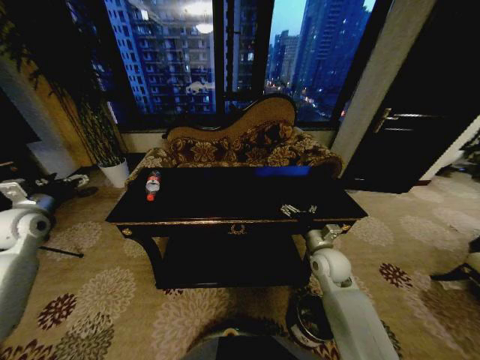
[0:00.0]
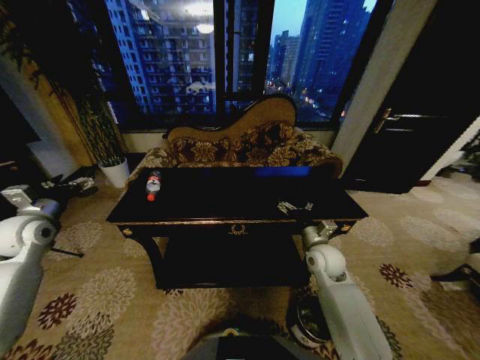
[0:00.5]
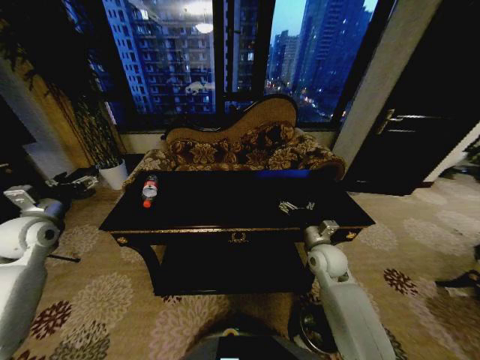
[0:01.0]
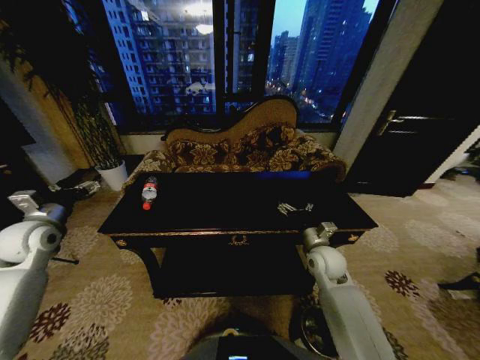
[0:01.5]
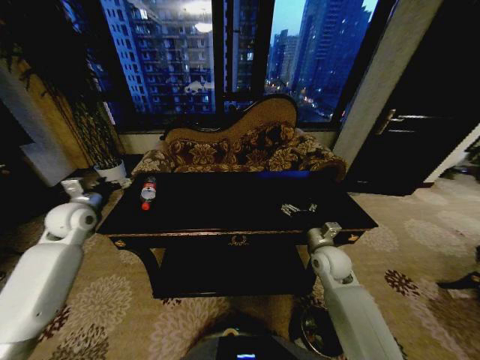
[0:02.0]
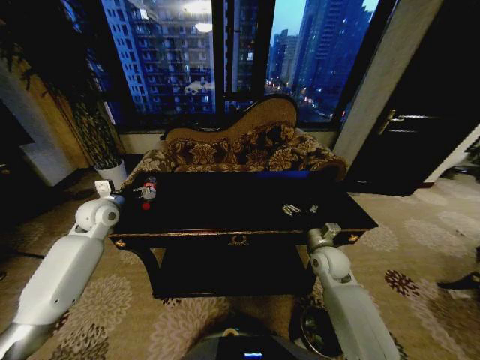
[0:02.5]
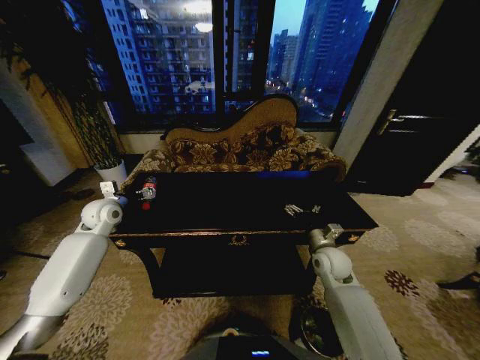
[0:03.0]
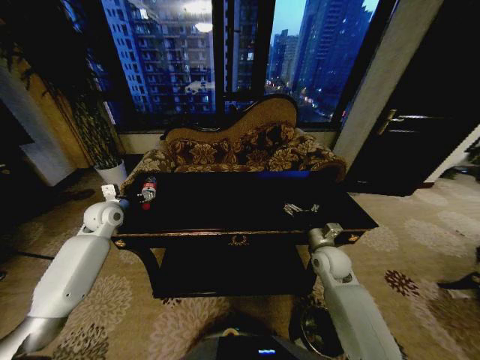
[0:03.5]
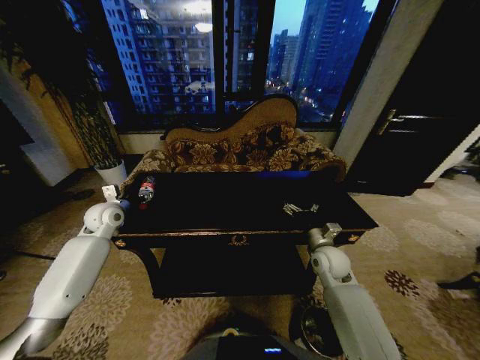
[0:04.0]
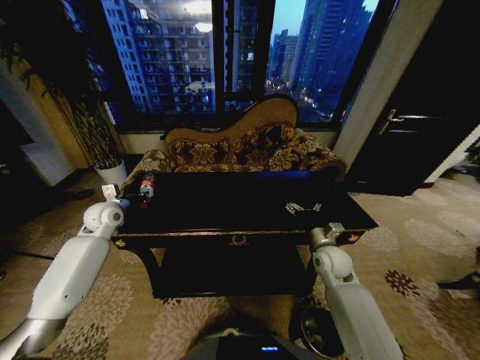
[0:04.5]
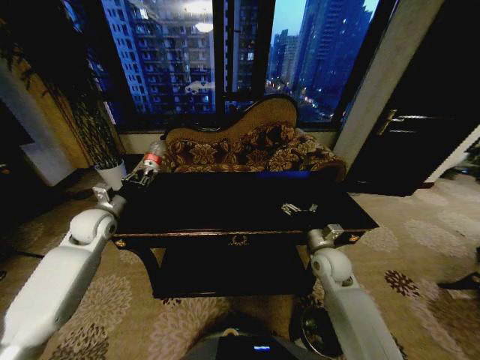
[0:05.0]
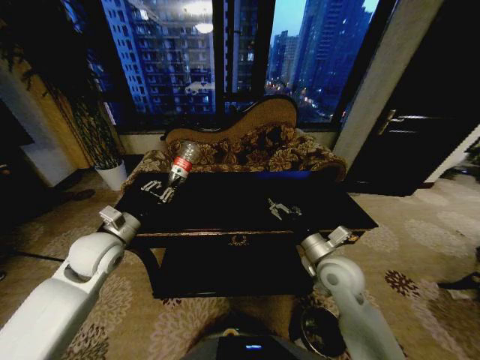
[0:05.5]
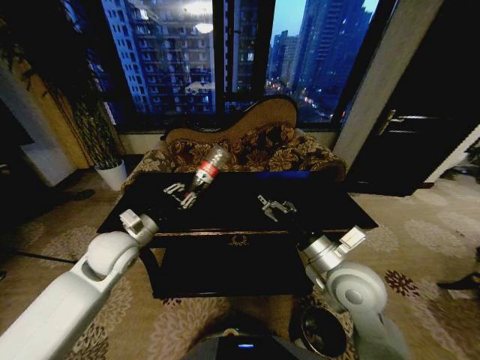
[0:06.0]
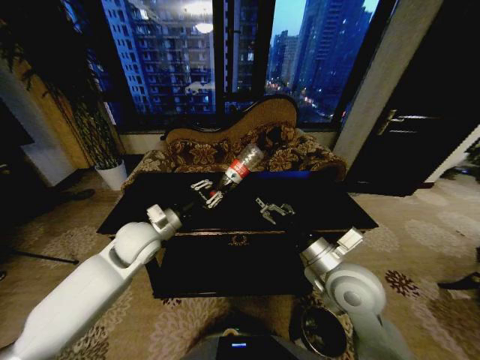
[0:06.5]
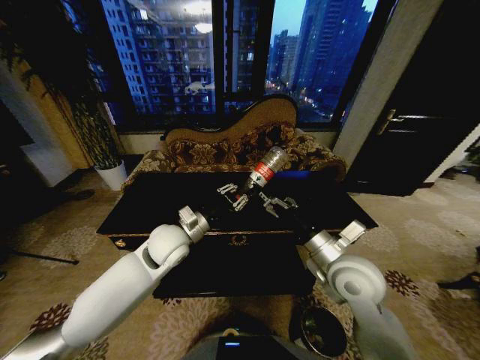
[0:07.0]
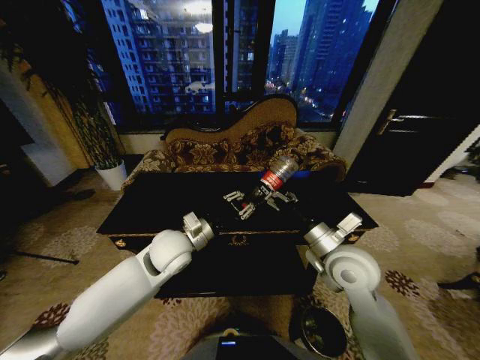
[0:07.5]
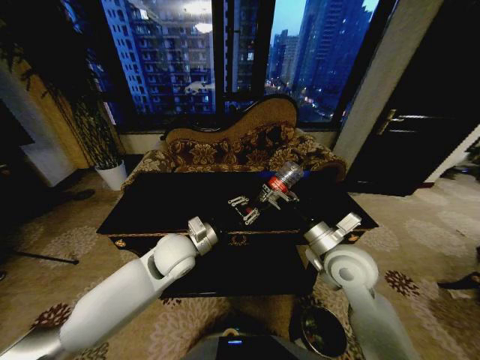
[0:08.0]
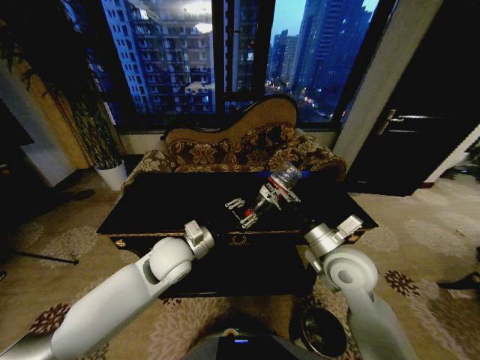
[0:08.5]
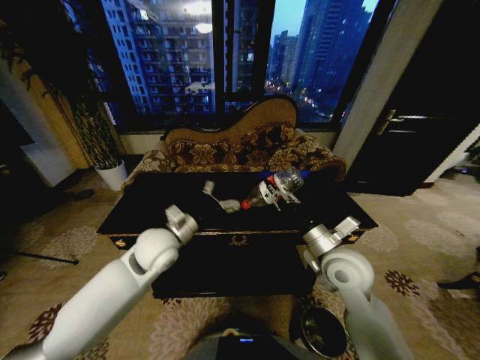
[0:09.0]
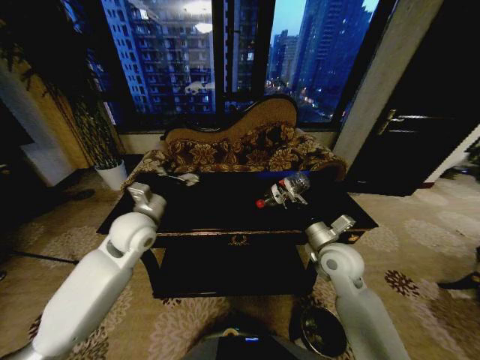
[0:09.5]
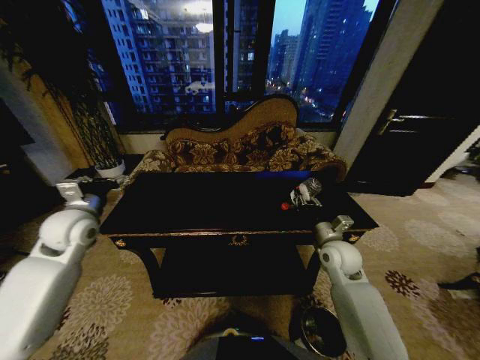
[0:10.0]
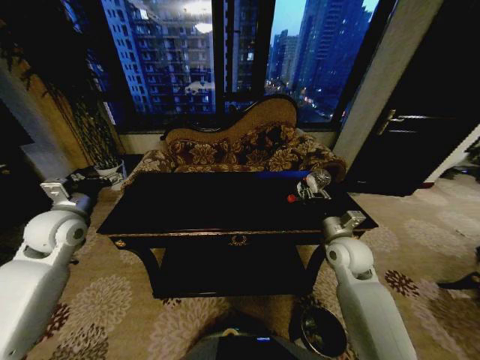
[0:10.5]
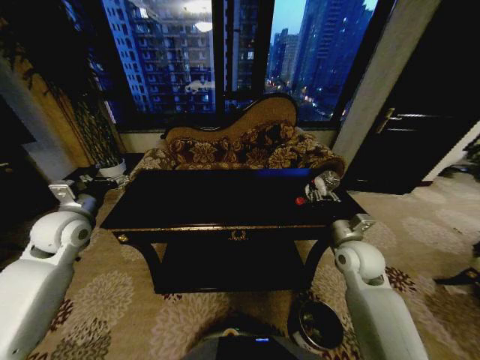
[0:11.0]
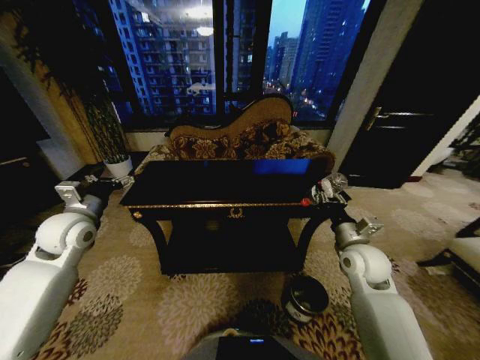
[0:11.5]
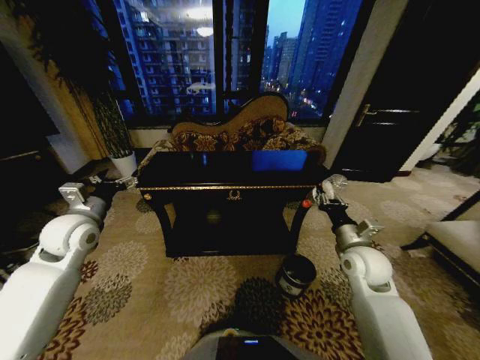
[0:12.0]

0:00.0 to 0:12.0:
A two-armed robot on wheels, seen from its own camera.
Task of the whole recording: Move to the front of the table and place the trash on the table into the trash bin.
0:00.0 to 0:02.0: The left gripper travels to the right by about 10 cm.
0:02.0 to 0:04.0: The left gripper ends up approximately 5 cm from where it was.
0:04.0 to 0:06.0: The right gripper travels upward, backward and to the left by approximately 20 cm; the left gripper is displaced backward and to the right by some 15 cm, and closes up.
0:06.0 to 0:08.0: The left gripper shifts roughly 15 cm to the right.
0:08.0 to 0:10.0: The left gripper moves to the left, about 25 cm, and opens its fingers; the right gripper shifts approximately 10 cm downward, forward and to the right, and closes its fingers.
0:10.0 to 0:12.0: The right gripper changes place by approximately 5 cm.

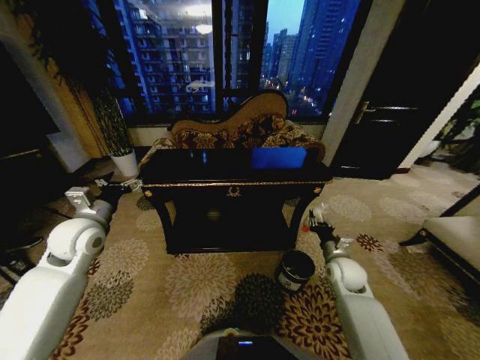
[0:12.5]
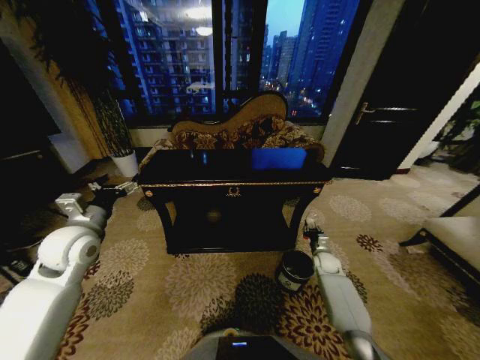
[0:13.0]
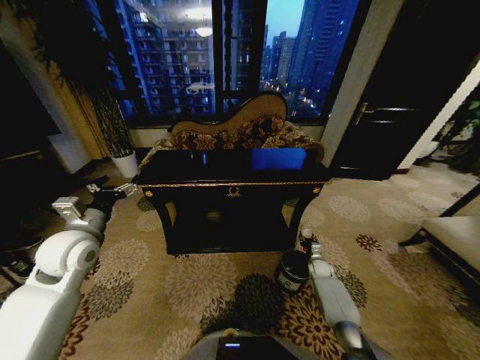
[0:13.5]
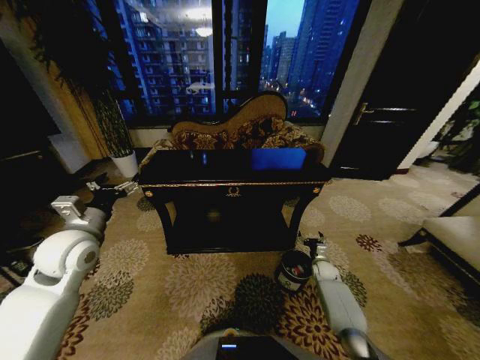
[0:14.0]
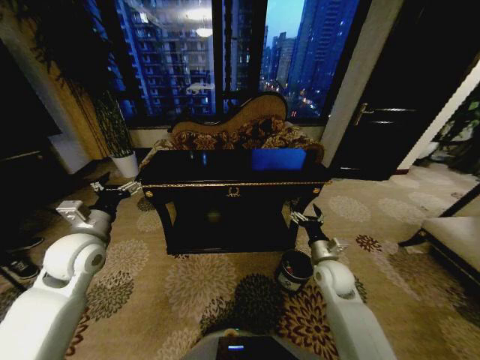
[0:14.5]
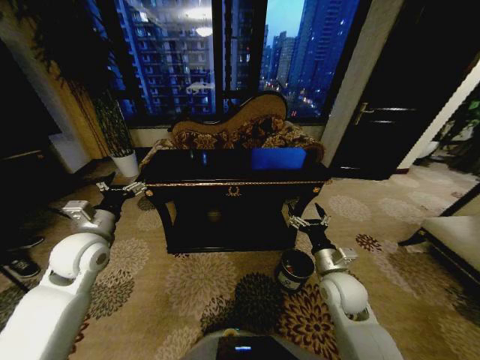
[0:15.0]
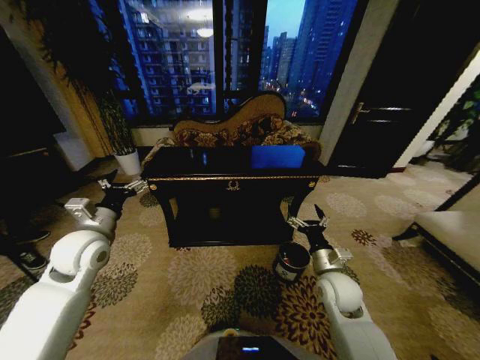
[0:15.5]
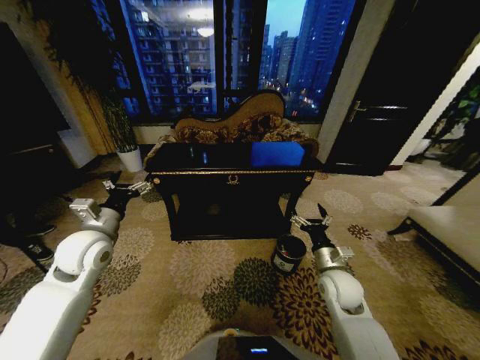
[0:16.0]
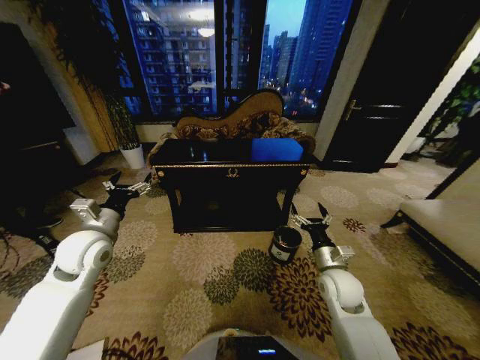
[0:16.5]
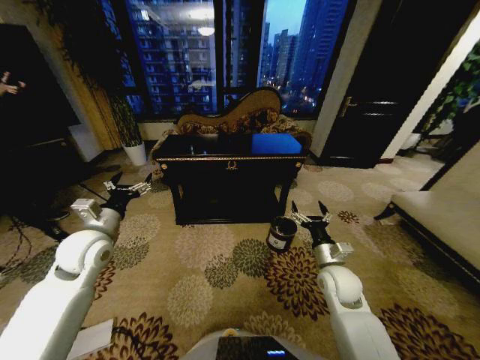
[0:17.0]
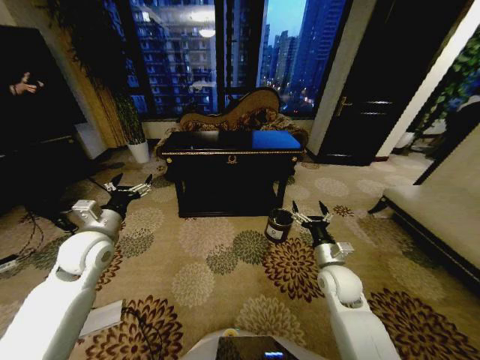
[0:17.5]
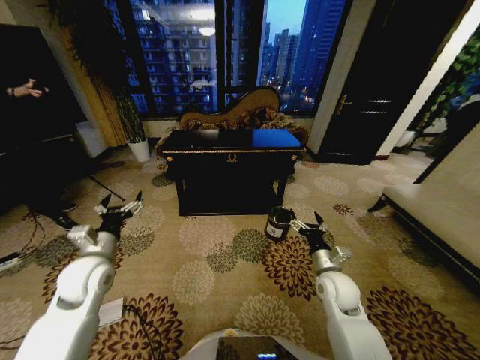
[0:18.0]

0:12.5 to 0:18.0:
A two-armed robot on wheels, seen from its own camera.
Task of the whole recording: Move to the front of the table and place the trash on the table into the trash bin.
0:12.5 to 0:14.5: The right gripper heads to the left, covering approximately 5 cm, travels downward and back again, about 15 cm each way, and opens up.
0:16.0 to 0:18.0: The left gripper goes some 5 cm downward.

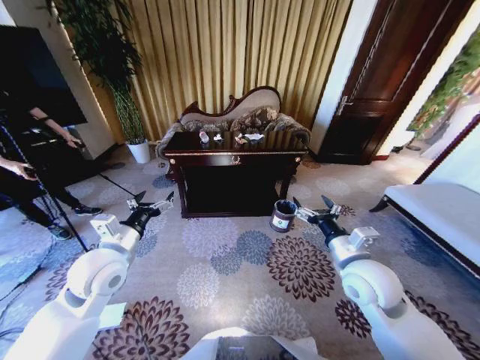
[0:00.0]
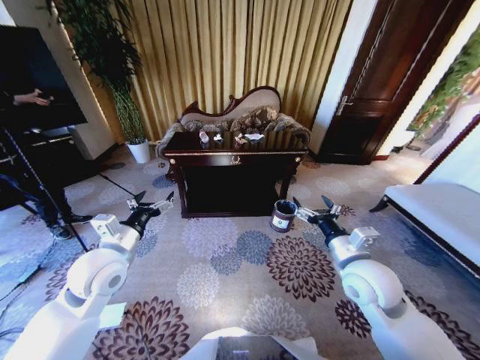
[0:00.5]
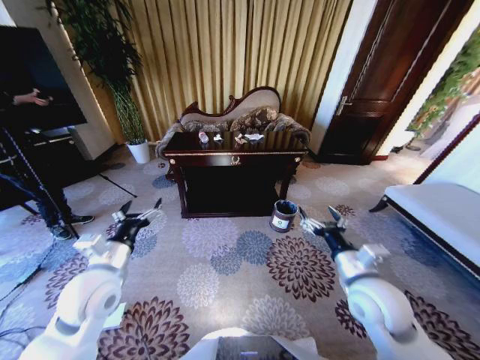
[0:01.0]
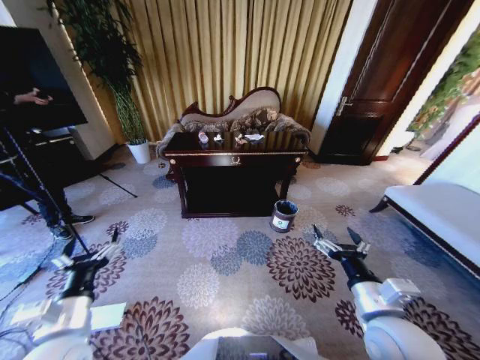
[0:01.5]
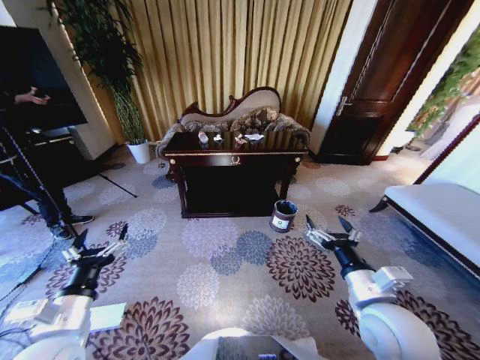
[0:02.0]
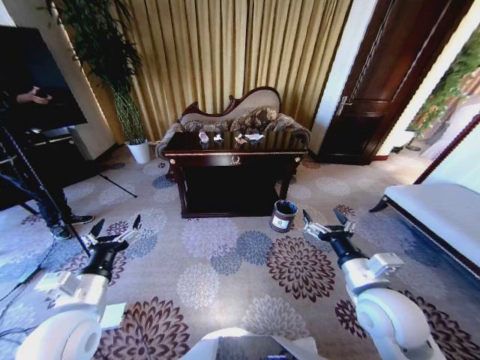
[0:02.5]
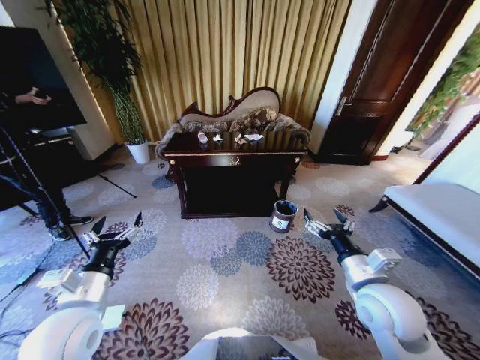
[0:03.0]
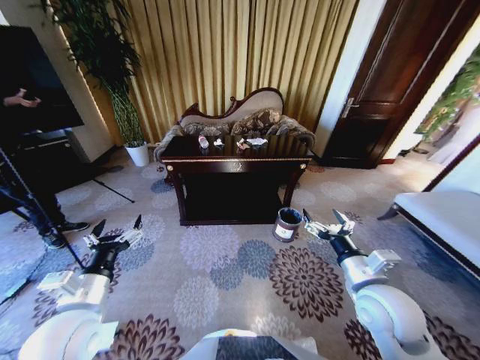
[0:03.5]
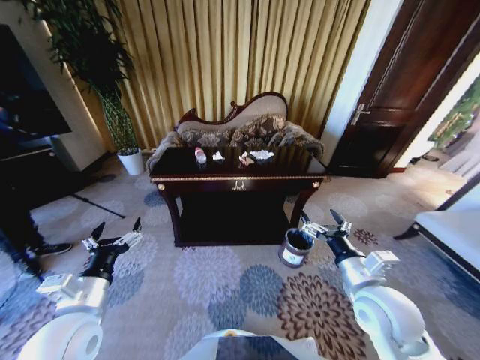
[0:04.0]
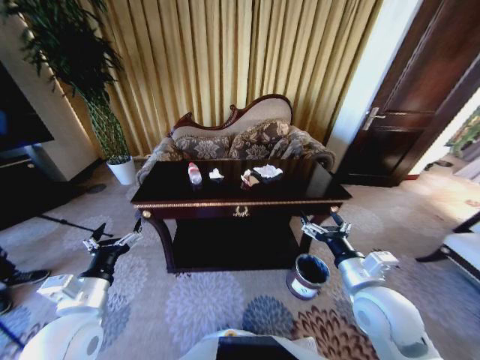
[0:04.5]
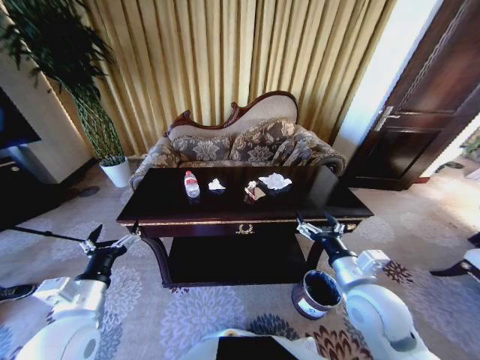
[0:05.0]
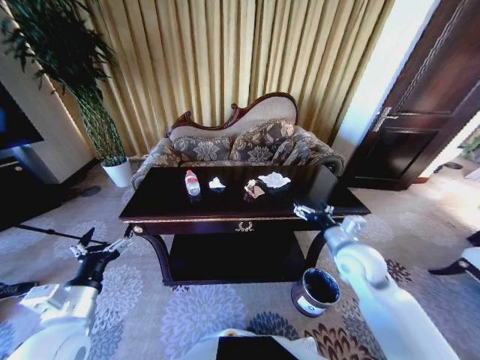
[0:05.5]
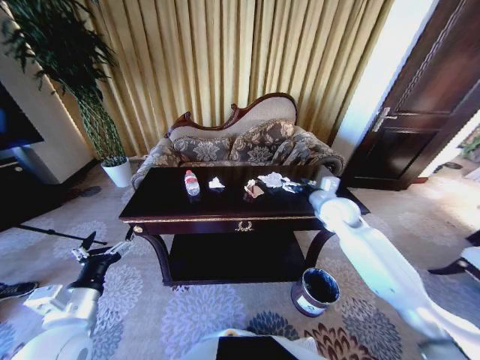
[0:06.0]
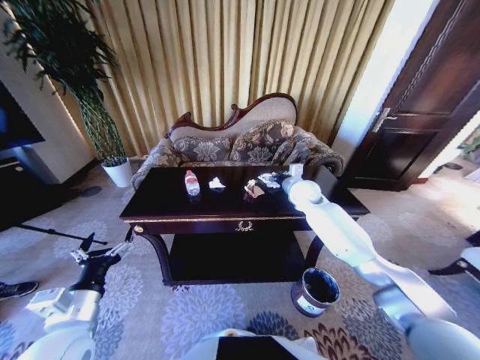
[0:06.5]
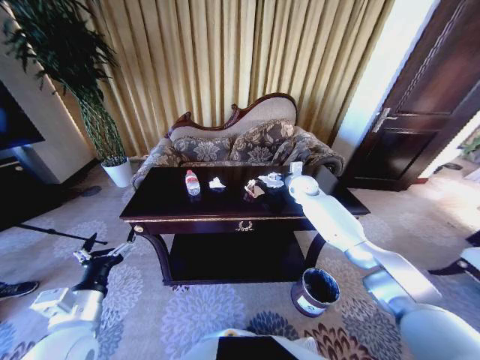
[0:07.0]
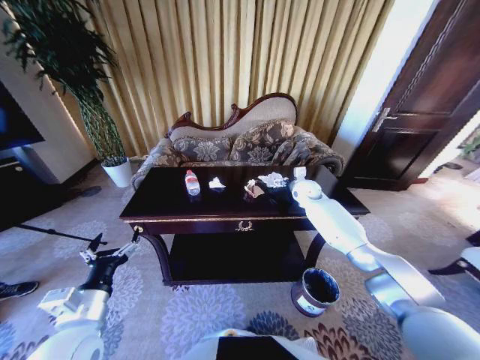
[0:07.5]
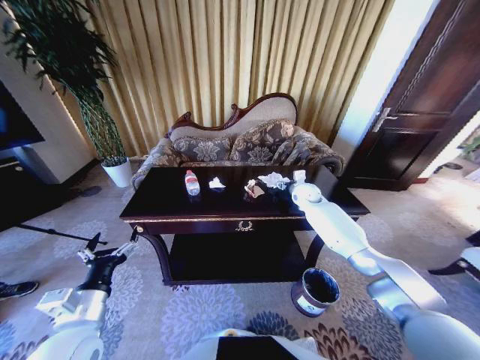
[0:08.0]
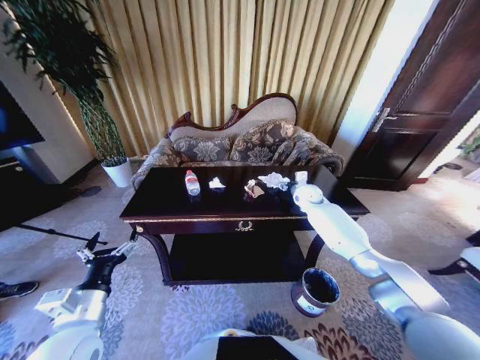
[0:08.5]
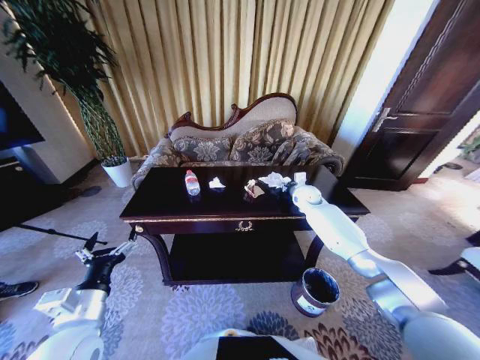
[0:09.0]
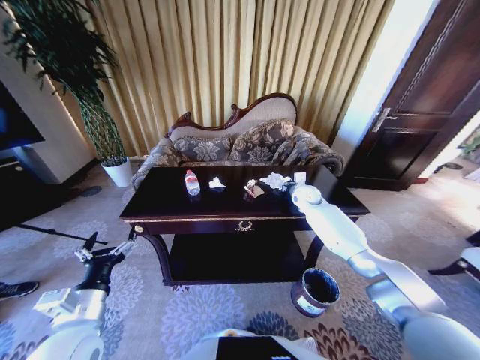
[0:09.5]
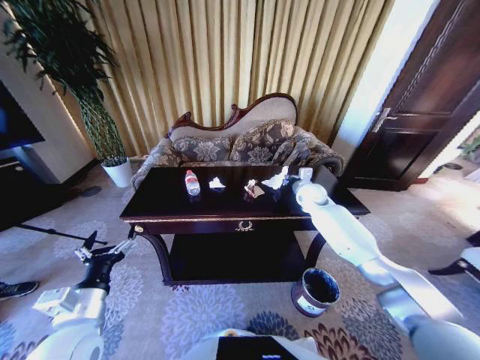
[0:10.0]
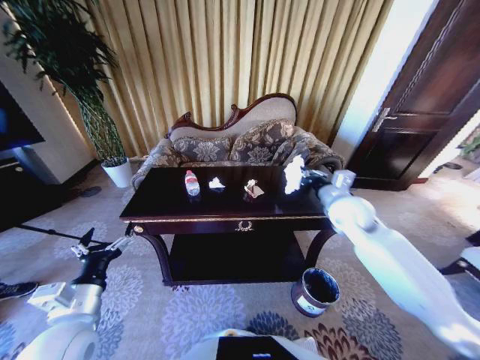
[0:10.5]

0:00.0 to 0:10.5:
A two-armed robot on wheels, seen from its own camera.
Task of the whole recording: Move to the front of the table and place the trash on the table into the trash bin.
0:04.0 to 0:06.5: The right gripper goes approximately 35 cm forward.
0:06.5 to 0:08.5: The right gripper moves downward, roughly 5 cm, and closes.
0:08.5 to 0:10.5: The right gripper is displaced backward and upward by roughly 20 cm, and closes its fingers.
